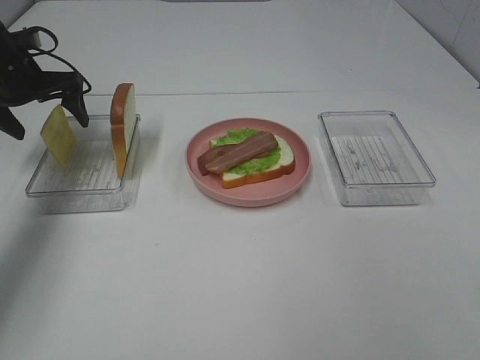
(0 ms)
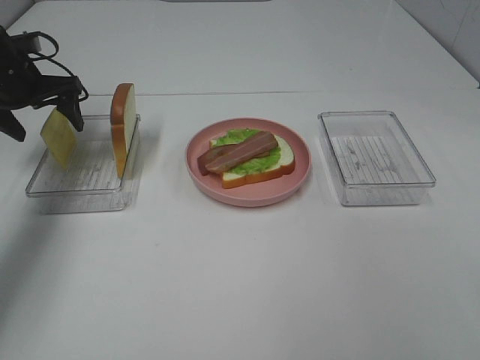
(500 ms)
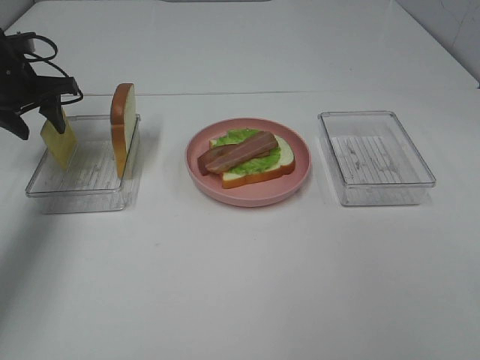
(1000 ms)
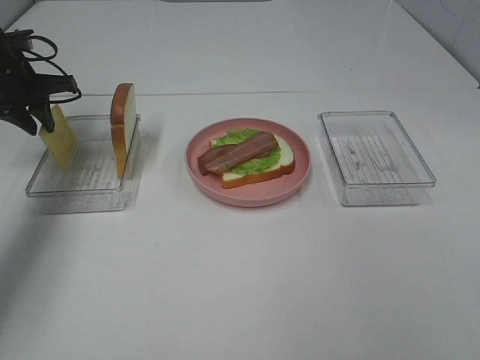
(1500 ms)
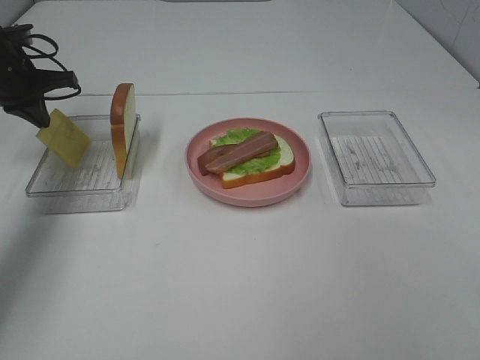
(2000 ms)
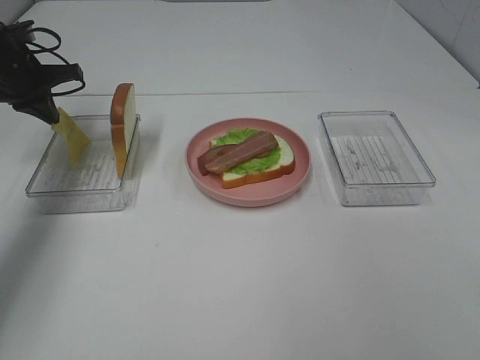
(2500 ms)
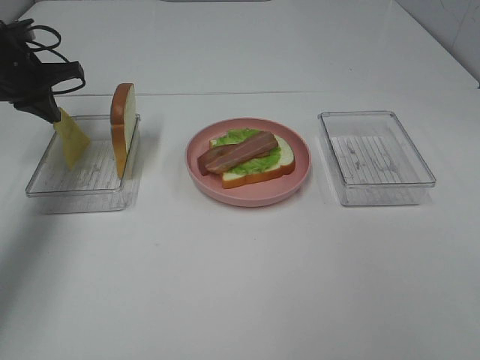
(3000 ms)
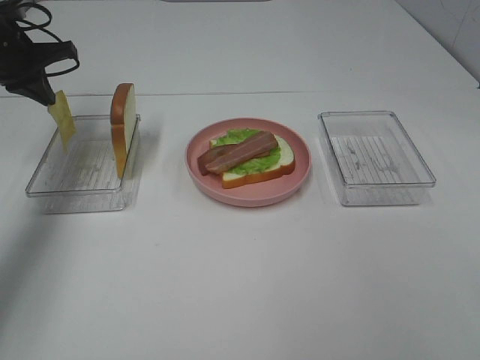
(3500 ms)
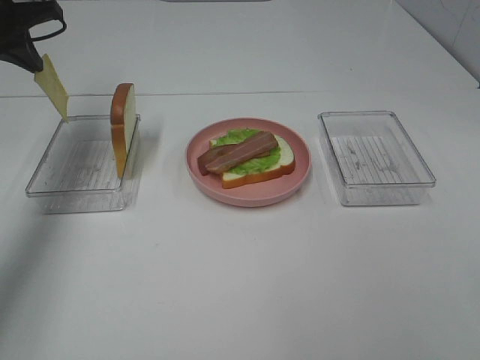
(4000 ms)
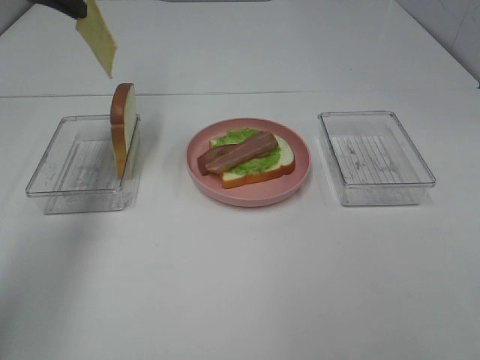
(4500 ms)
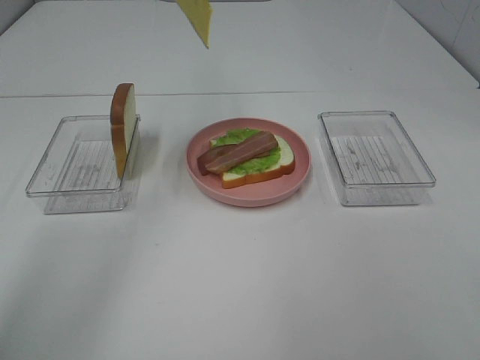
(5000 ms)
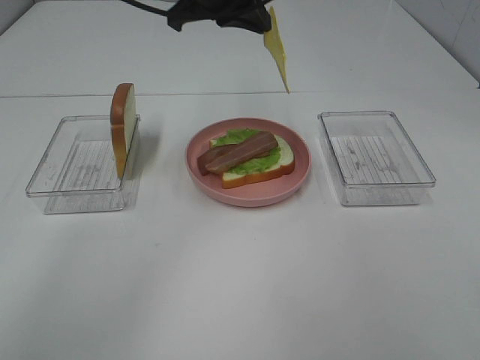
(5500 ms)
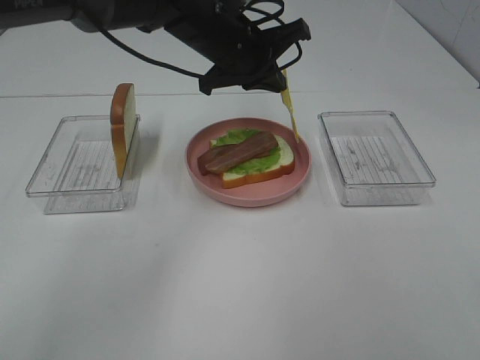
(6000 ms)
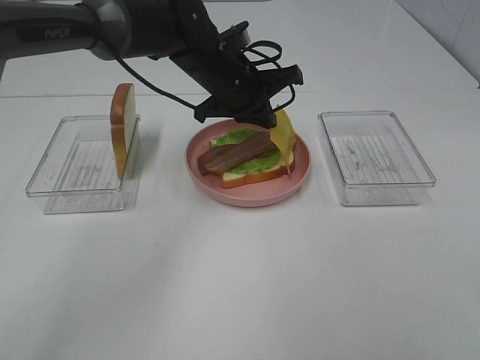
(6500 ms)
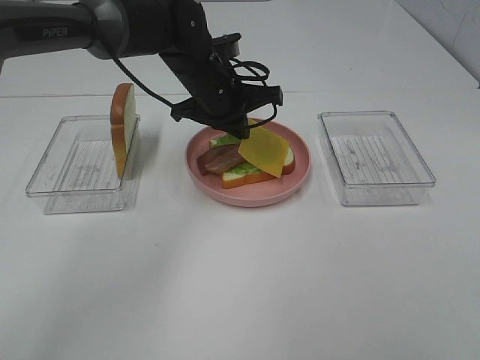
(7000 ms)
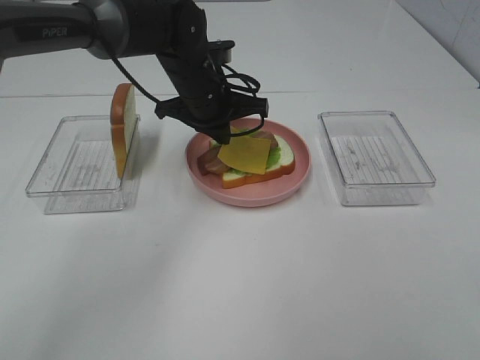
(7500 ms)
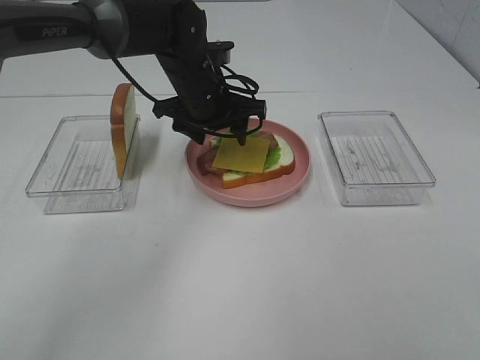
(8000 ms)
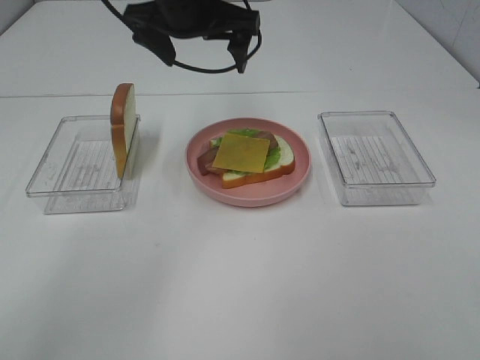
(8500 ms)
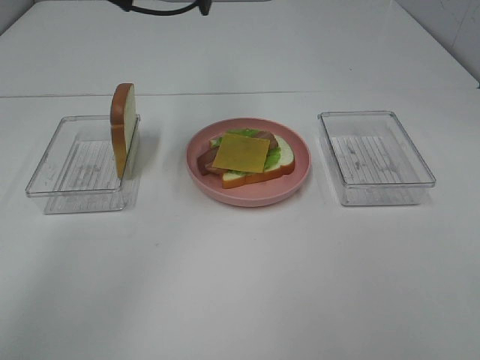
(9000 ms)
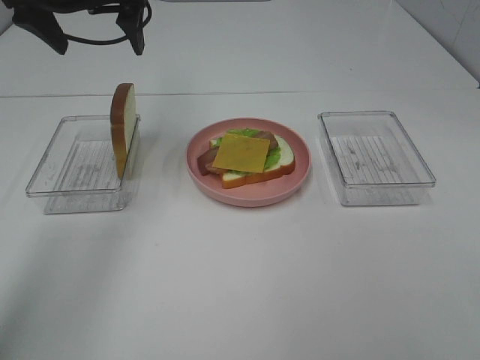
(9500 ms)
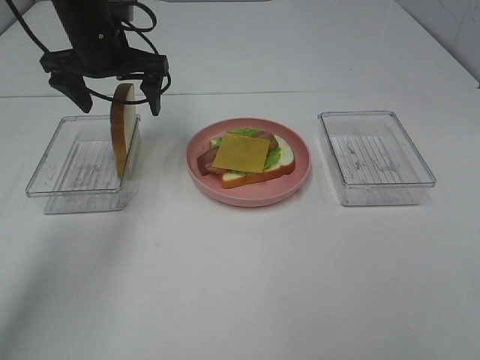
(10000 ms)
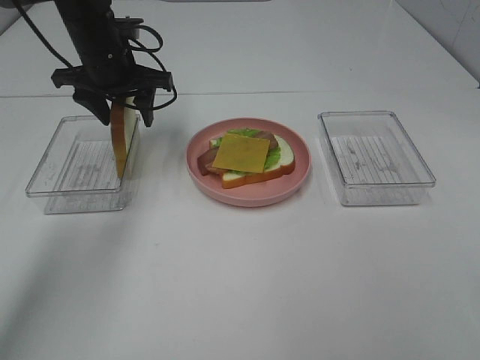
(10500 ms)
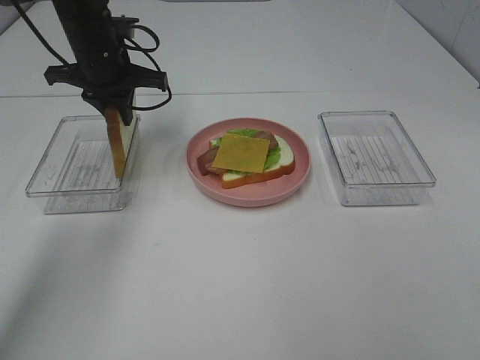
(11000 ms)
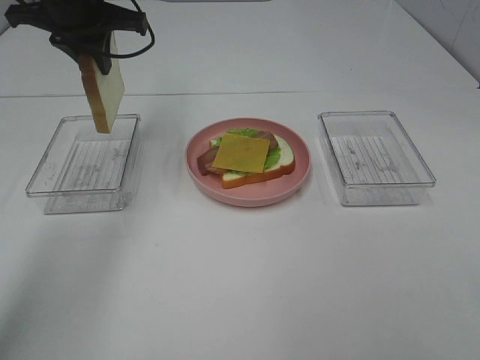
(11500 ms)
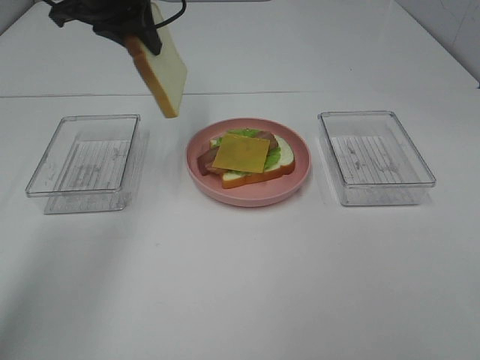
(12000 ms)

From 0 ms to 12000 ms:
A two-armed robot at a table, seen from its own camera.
Task of the whole recording: Make sandwiches.
Step, from 0 ms to 2000 ms: Left hand:grab the cheese slice.
Step, from 2500 ms to 8000 ms: Left hand:place the cheese slice on top of the bacon.
Step, from 8500 ms to 10500 ms: Left hand:grab the bread slice.
From 0 ms to 2000 ms: The left gripper closes up.
From 2000 ms to 4000 ms: The left gripper moves upward, approximately 10 cm.
From 4000 ms to 6000 ms: The left gripper shifts approximately 30 cm to the right.
From 6000 ms to 8000 ms: The left gripper shifts about 5 cm downward, and opens its fingers.
From 8000 ms to 10000 ms: The left gripper heads to the left, covering some 10 cm, and reaches approximately 20 cm upward, then returns.
From 10000 ms to 12000 ms: The left gripper shifts roughly 10 cm upward, and closes its fingers.

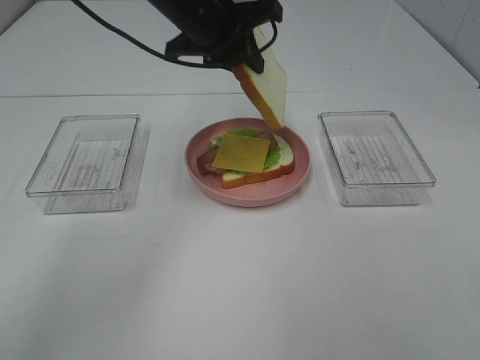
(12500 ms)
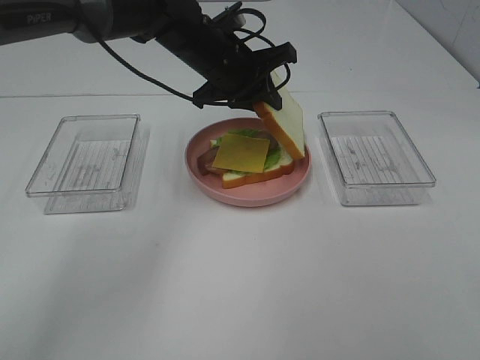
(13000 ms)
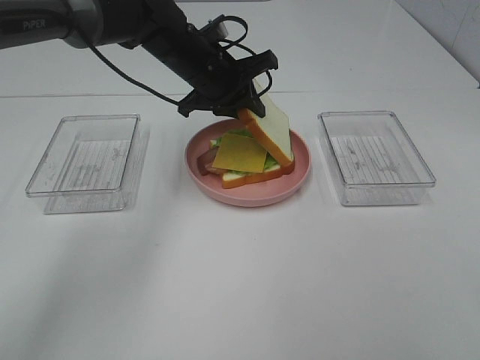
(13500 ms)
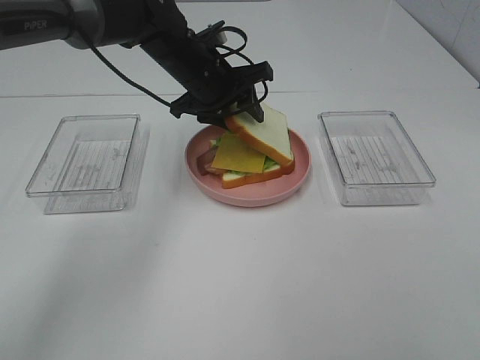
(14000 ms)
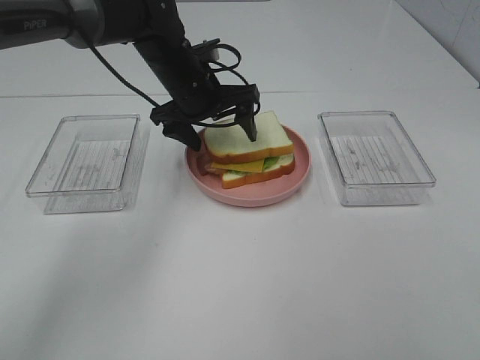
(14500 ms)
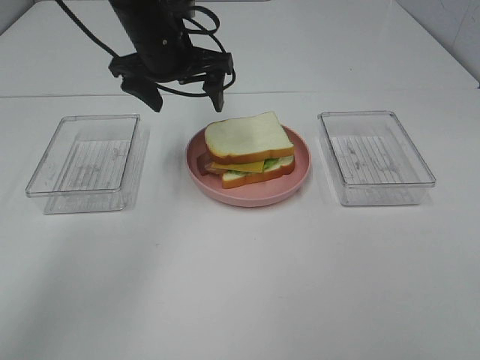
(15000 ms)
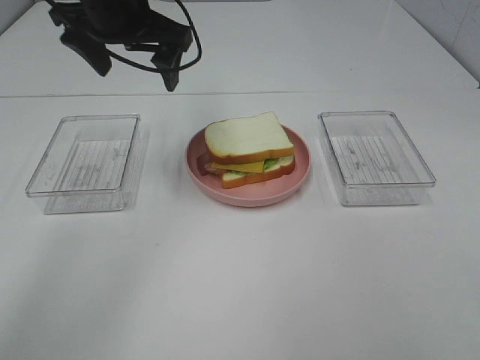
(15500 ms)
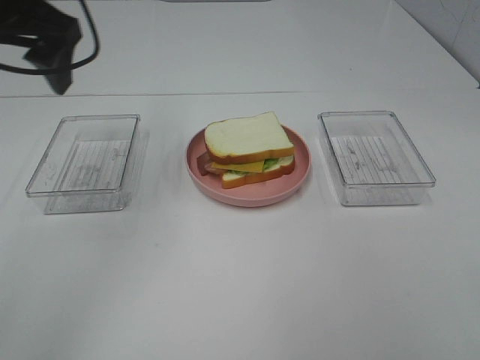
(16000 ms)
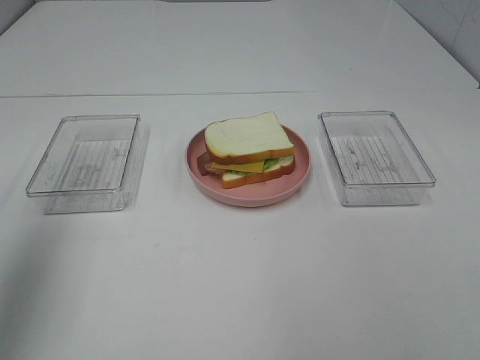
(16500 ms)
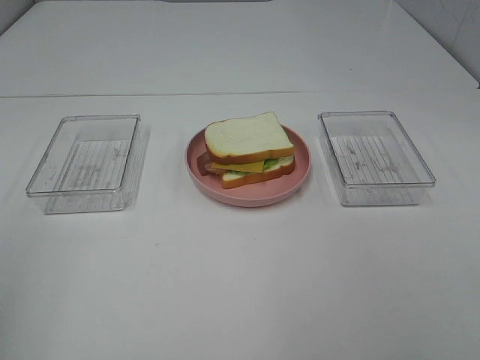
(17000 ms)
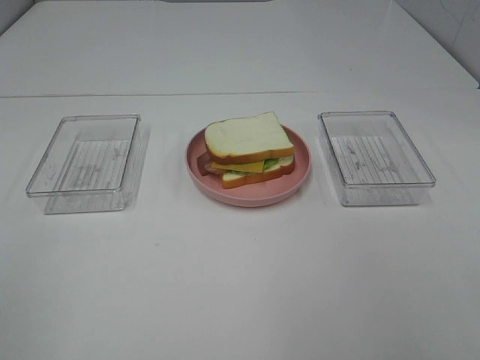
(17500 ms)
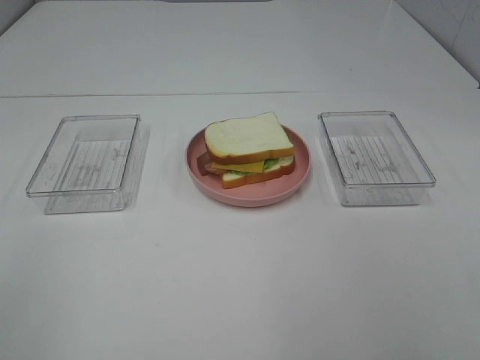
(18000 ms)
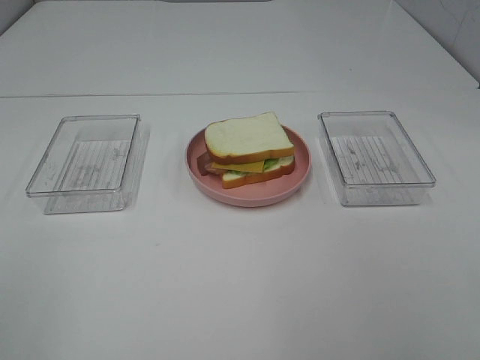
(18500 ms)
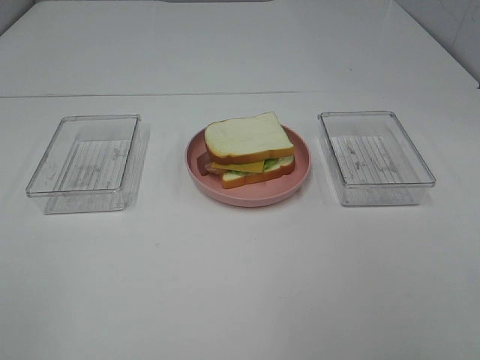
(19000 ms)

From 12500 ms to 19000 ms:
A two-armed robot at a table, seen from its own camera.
Task of the whole recording: Make sandwiches.
Step, from 12500 ms to 14500 ms: Left hand:place the bread slice on the cheese slice.
From 12500 ms to 14500 ms: The left gripper is displaced downward by some 10 cm, and opens.
From 14500 ms to 17000 ms: The left gripper goes roughly 50 cm backward and to the left.

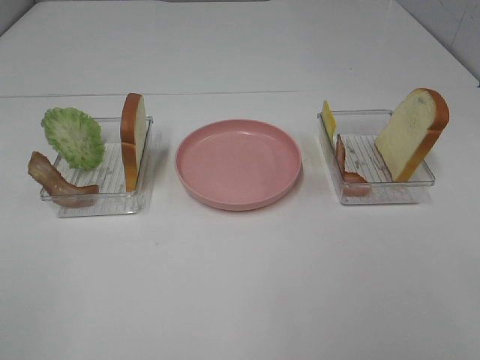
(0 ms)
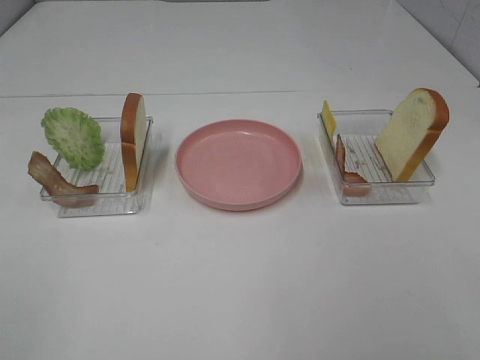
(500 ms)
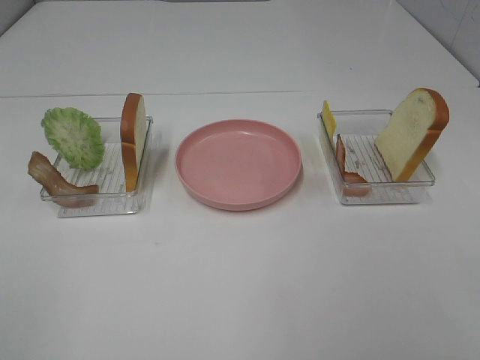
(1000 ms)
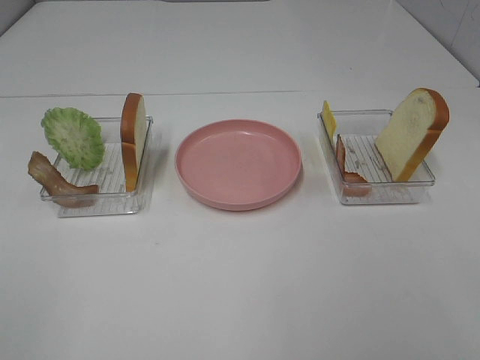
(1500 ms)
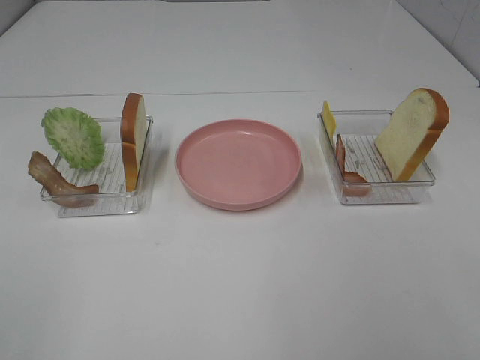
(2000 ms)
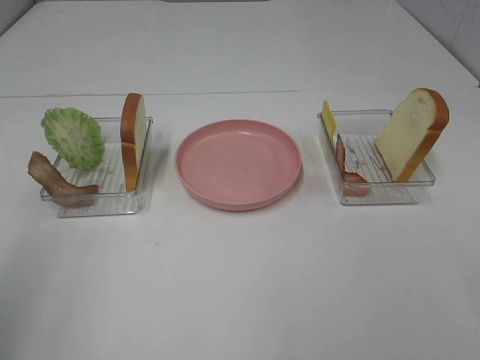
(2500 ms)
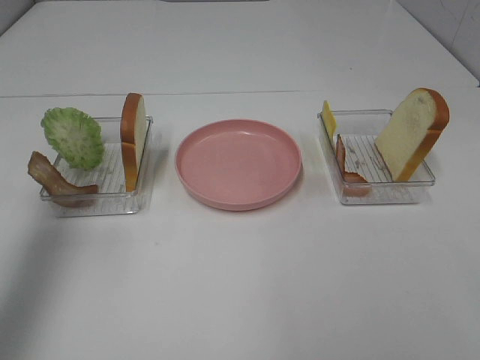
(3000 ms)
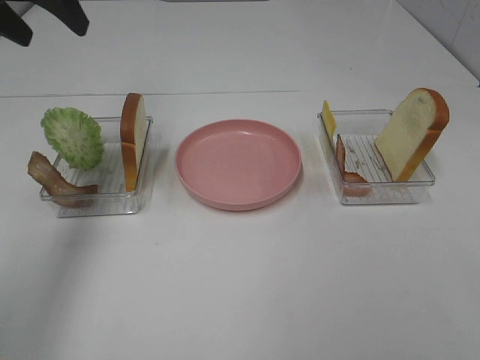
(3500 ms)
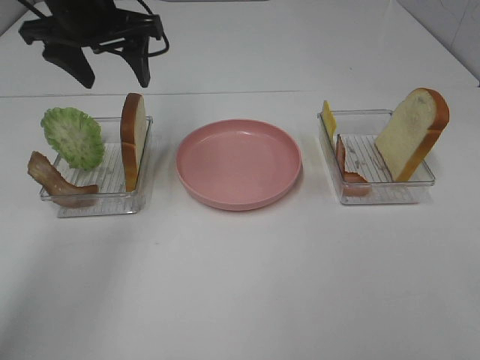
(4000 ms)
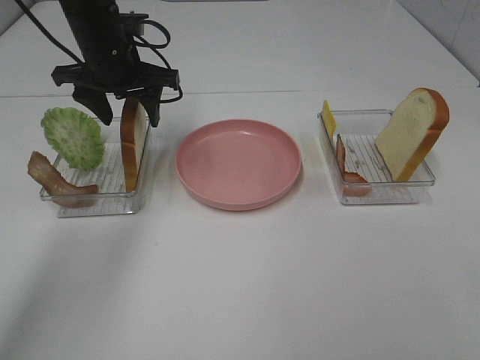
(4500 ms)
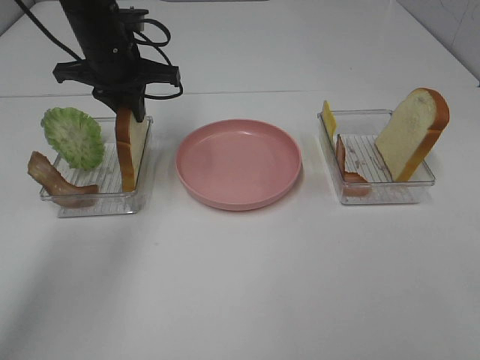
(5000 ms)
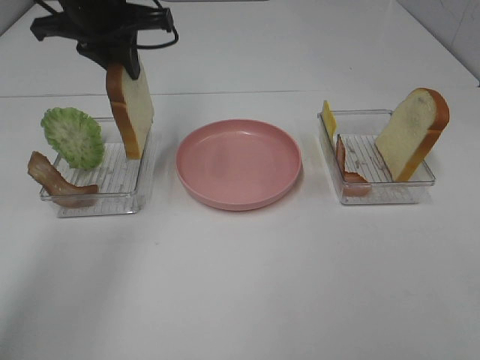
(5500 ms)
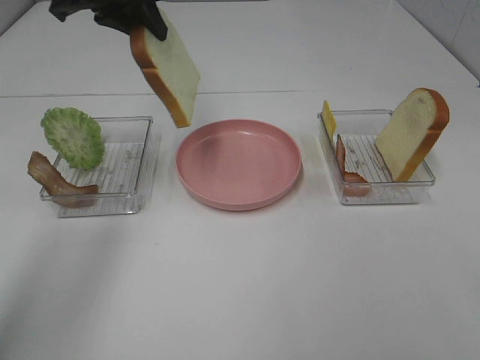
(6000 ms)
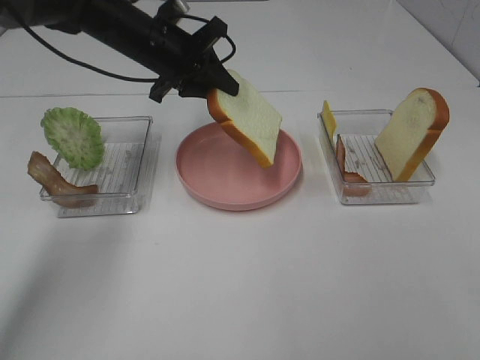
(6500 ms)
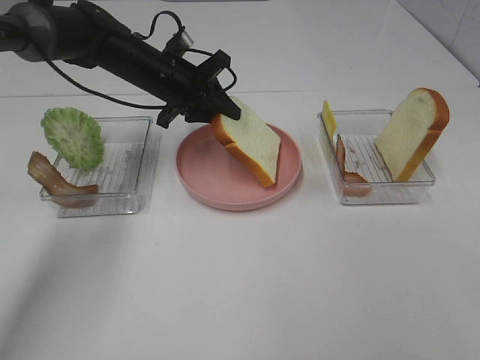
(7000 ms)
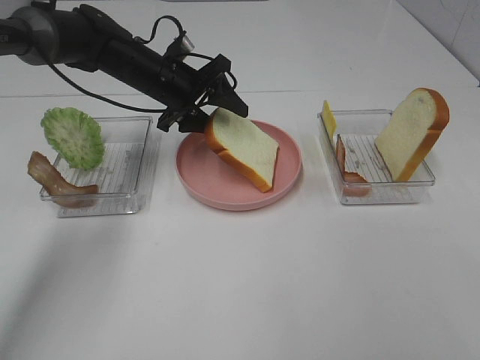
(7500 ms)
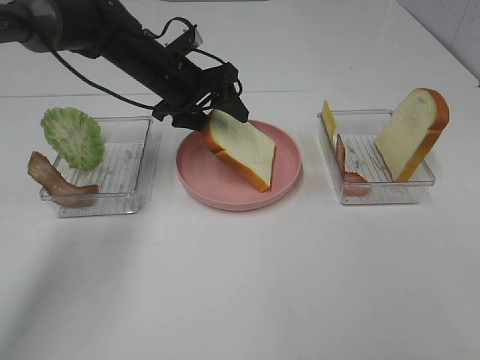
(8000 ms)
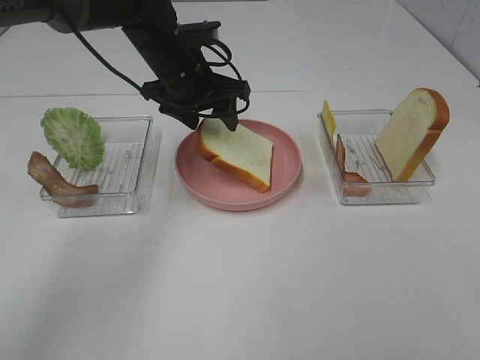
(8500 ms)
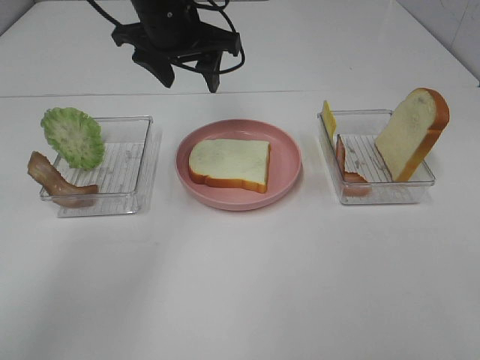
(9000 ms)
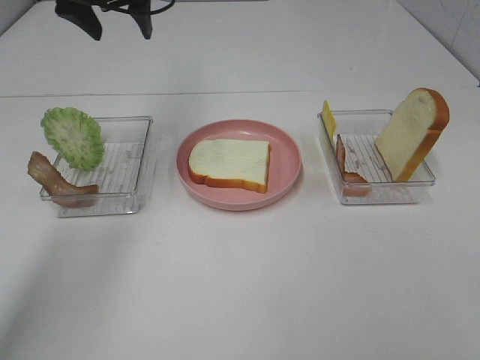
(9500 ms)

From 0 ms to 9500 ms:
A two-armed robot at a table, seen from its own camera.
Task of the whole recording: Make sandwiches.
Step, from 0 ms to 5000 ms: Left hand:grab the bread slice.
Step, from 5500 ms to 8500 ms: Left hand:place the bread slice on the plate.
From 2000 ms to 4000 ms: The left gripper shifts about 40 cm forward.
From 4000 ms to 5500 ms: The left gripper reaches roughly 5 cm downward, then returns, and closes up.
From 5500 ms to 7500 ms: The left gripper is displaced downward by roughly 15 cm, and opens.
From 7500 ms to 9500 ms: The left gripper heads upward, covering roughly 15 cm.
